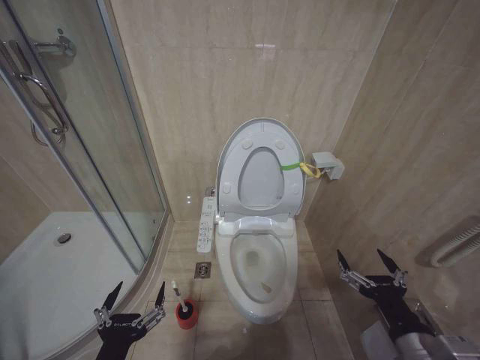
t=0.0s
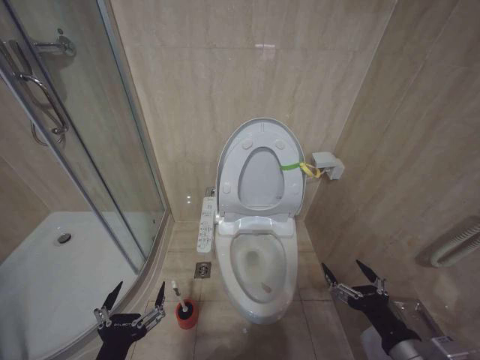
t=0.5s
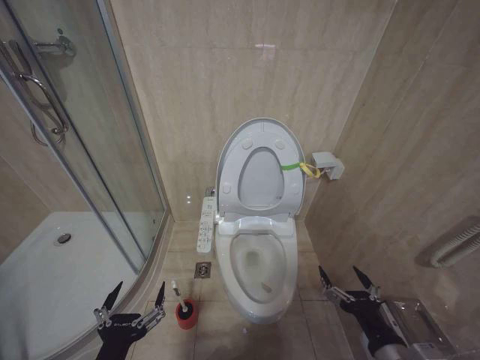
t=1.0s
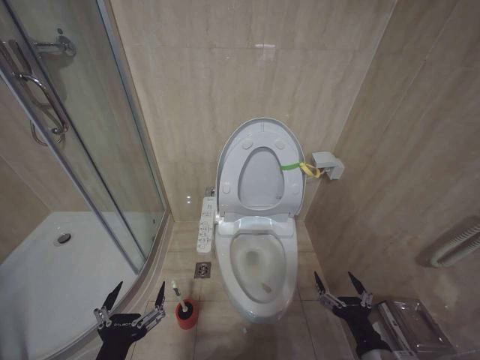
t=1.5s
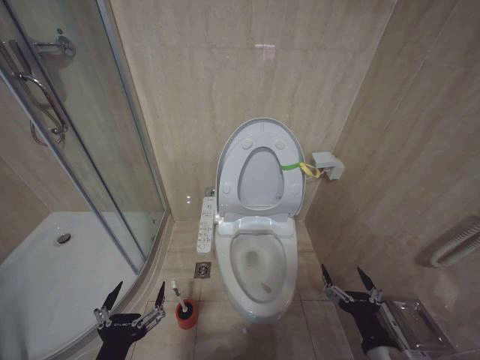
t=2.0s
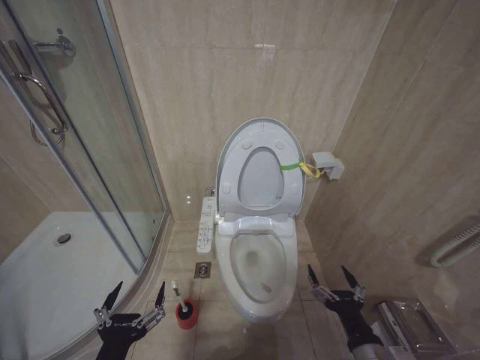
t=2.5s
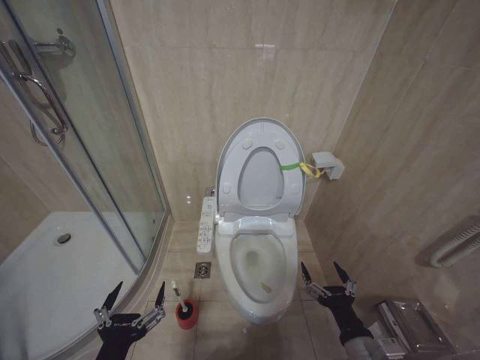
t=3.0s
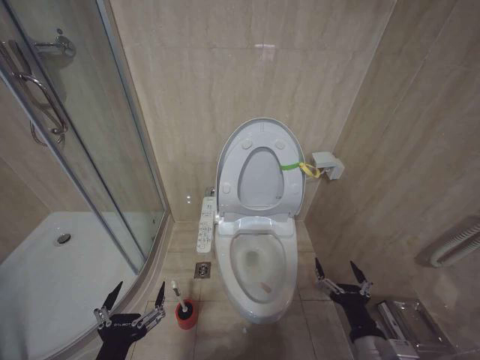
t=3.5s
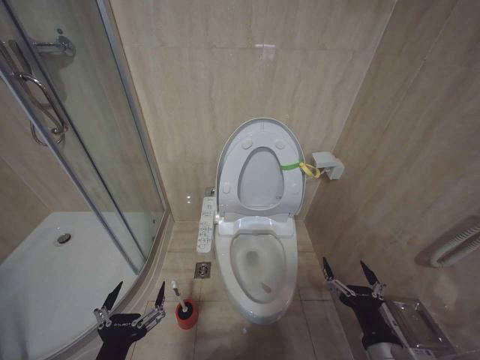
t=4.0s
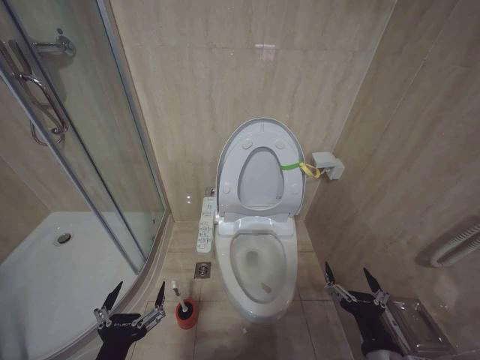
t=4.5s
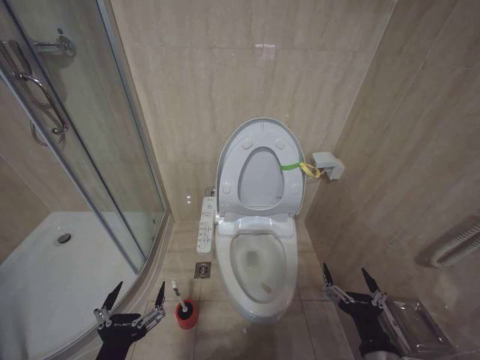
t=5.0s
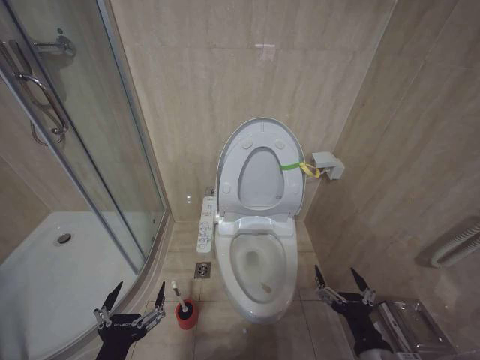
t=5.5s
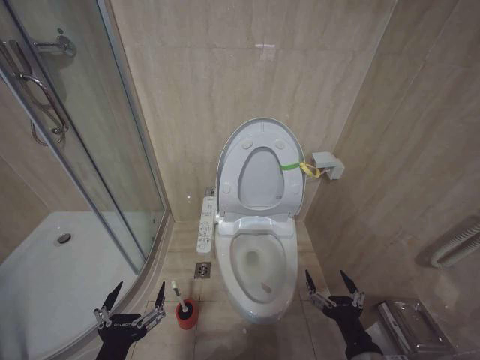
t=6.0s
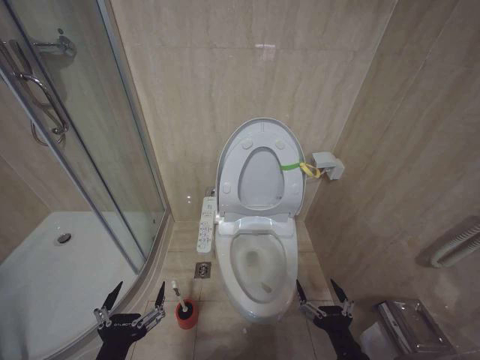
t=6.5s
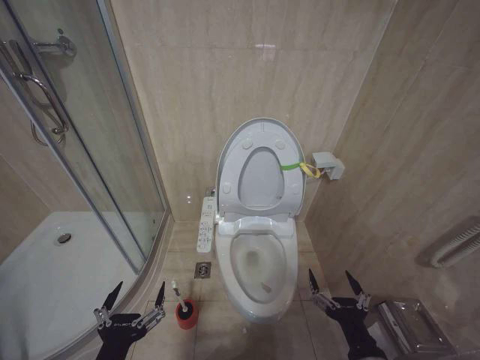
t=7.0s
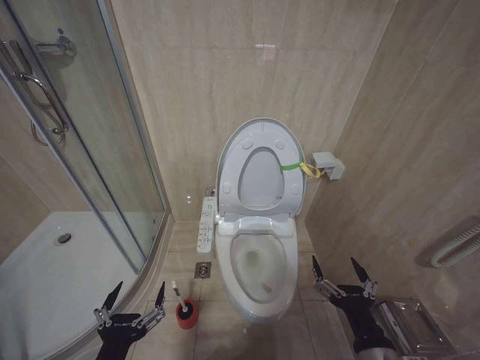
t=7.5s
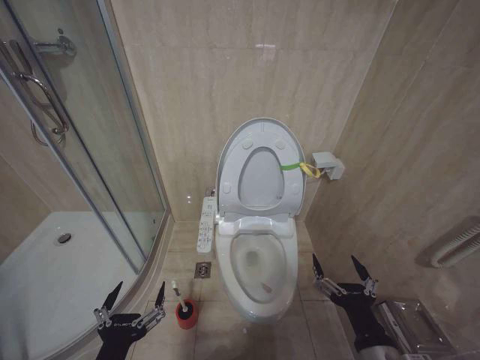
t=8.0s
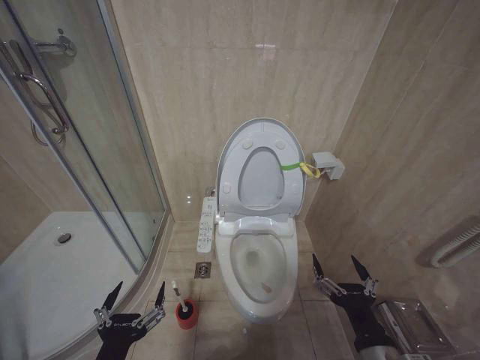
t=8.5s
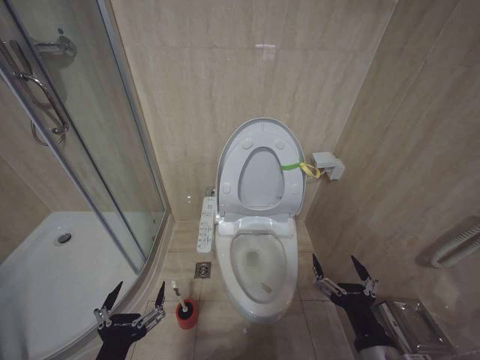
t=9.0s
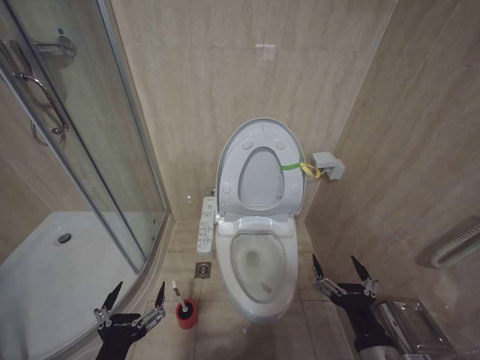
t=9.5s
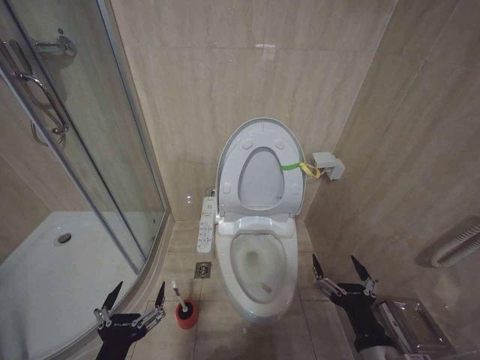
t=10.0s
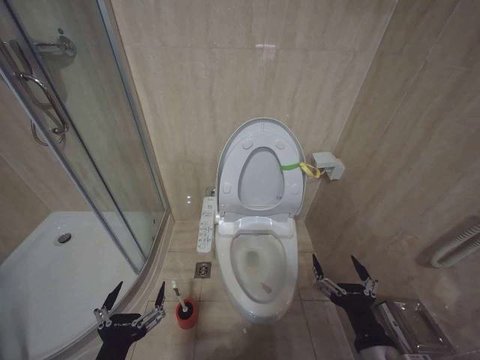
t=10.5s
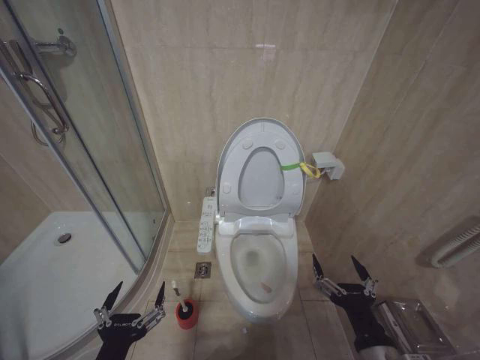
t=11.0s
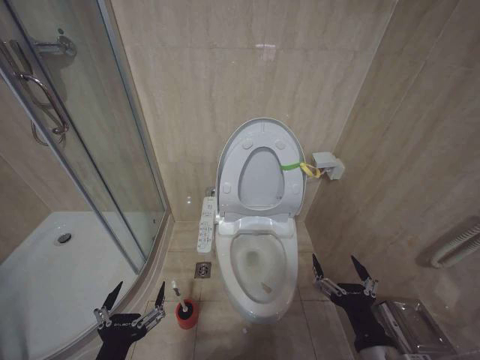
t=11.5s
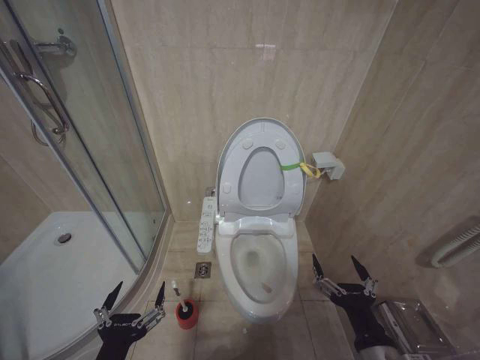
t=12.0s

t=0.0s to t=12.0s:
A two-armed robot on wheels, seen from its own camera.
Task of the whole recording: Open the toilet lid, clean the toilet bowl with a toilet brush, close the toilet lid, and flush.
t=0.0s to t=2.0s: The right gripper goes about 10 cm downward.
t=4.0s to t=6.0s: There are only small adjustments of the grippers.
t=6.0s to t=8.0s: The right gripper moves upward, some 5 cm.
t=8.0s to t=12.0s: The two grippers keep their place.

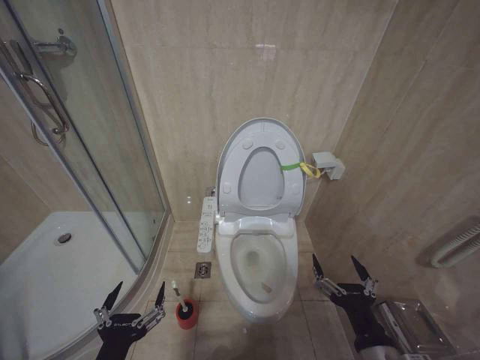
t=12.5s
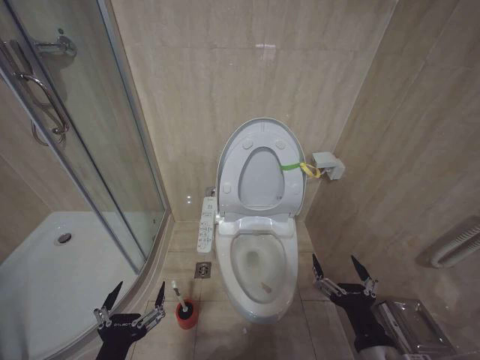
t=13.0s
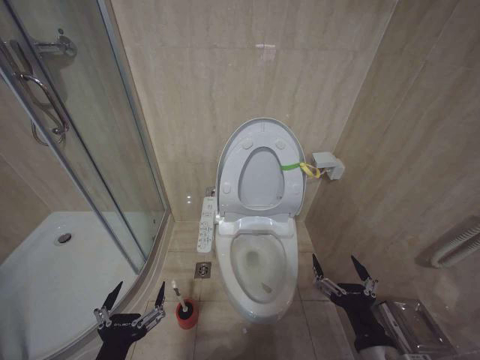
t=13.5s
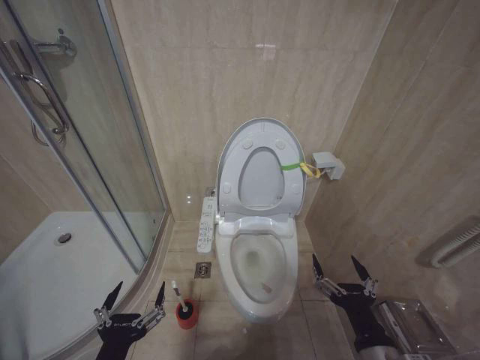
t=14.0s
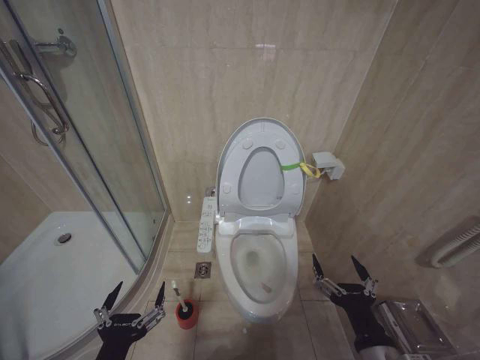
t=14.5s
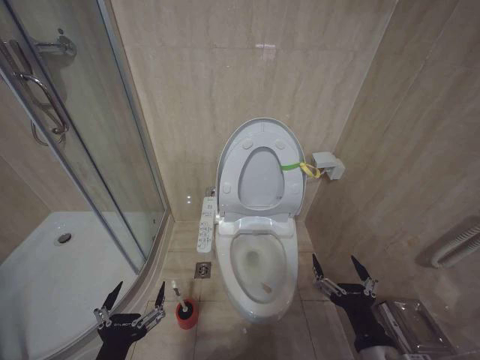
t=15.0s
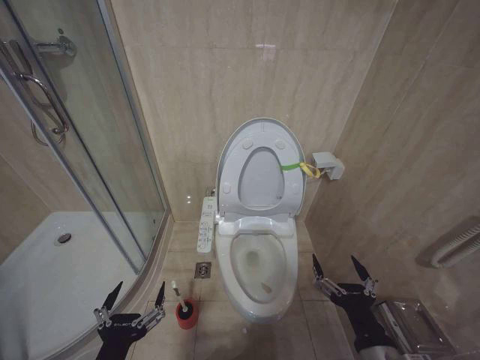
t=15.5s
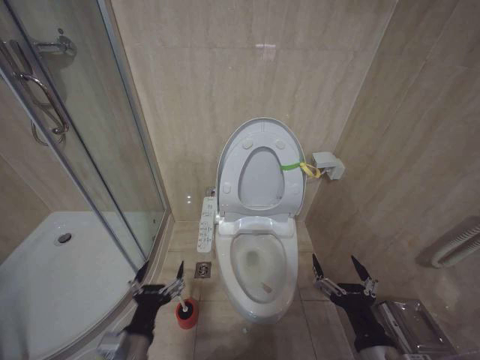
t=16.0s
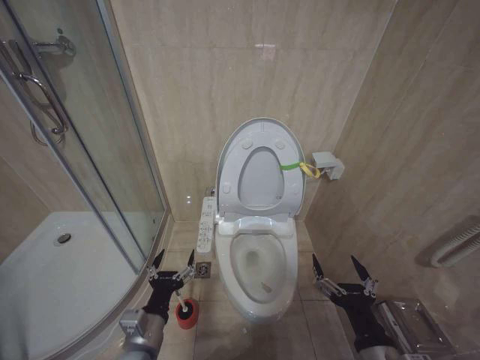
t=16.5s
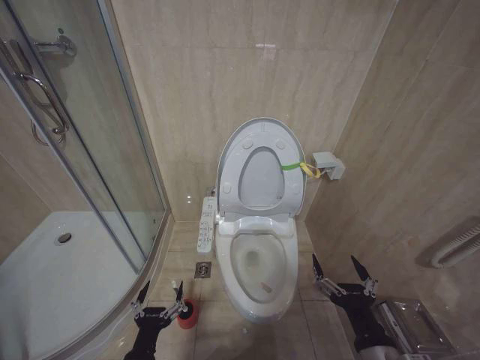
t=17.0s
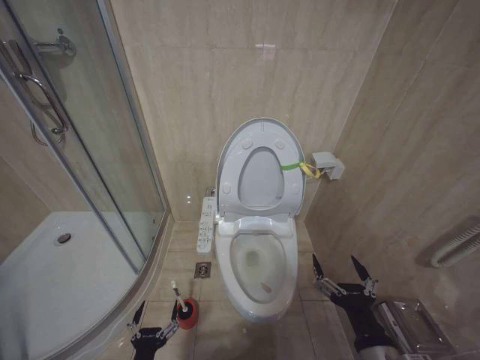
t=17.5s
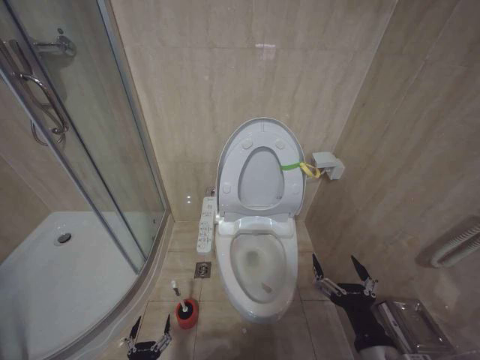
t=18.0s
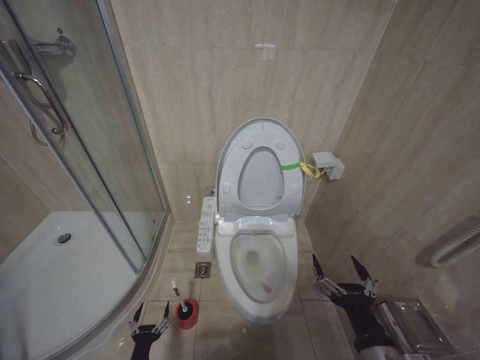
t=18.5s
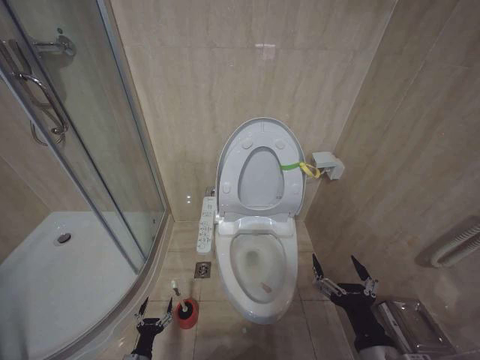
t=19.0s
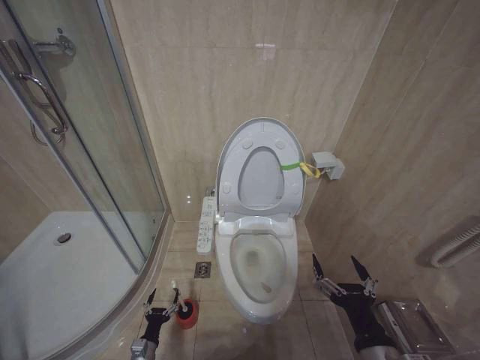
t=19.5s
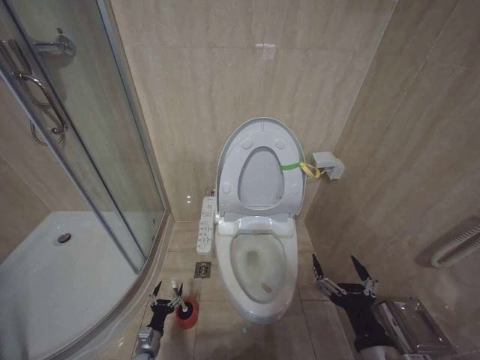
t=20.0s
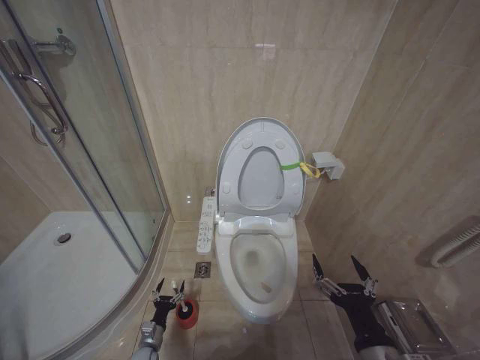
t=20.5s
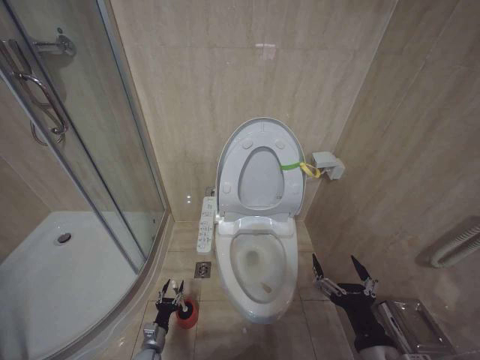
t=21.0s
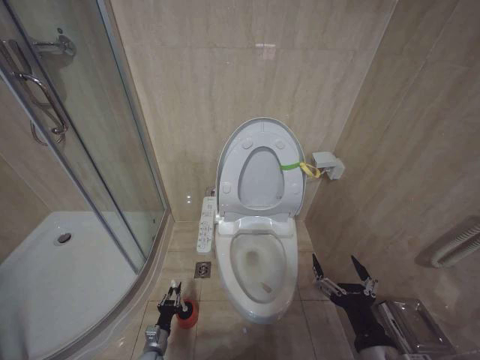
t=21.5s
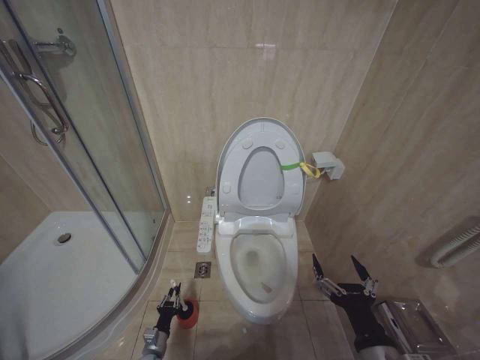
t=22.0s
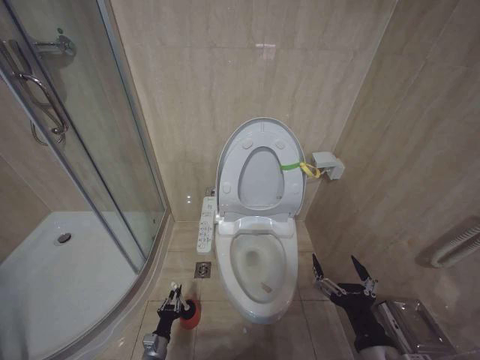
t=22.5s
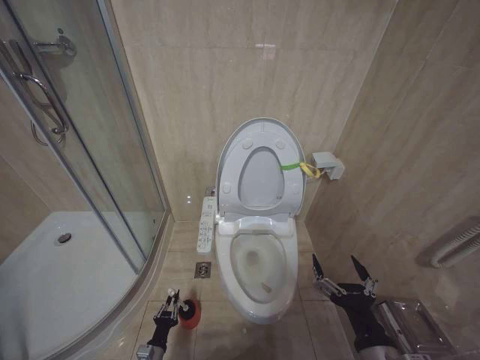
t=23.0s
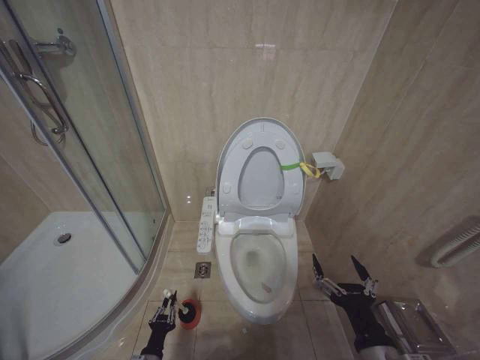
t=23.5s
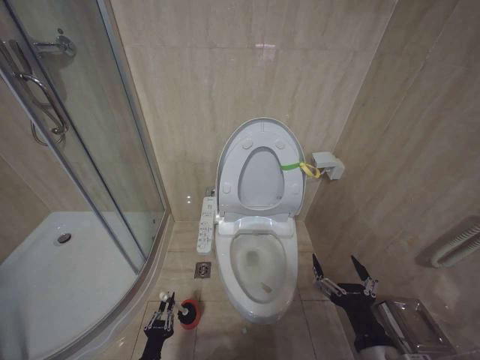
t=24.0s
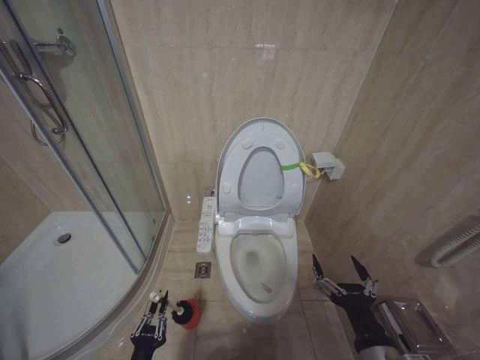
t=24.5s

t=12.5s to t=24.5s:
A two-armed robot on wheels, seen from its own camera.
Task of the whole recording: Open the toilet lid, clean the toilet bowl with a toilet brush, close the toilet lid, and flush.
t=12.5s to t=14.5s: Both grippers stay put.
t=14.5s to t=16.5s: The left gripper travels forward by roughly 10 cm.
t=16.5s to t=18.5s: The left gripper is displaced downward by approximately 30 cm.
t=18.5s to t=20.5s: The left gripper heads forward and downward, covering some 15 cm.
t=20.5s to t=22.5s: The left gripper closes its fingers.
t=22.5s to t=24.5s: The left gripper is displaced upward and backward by approximately 20 cm.

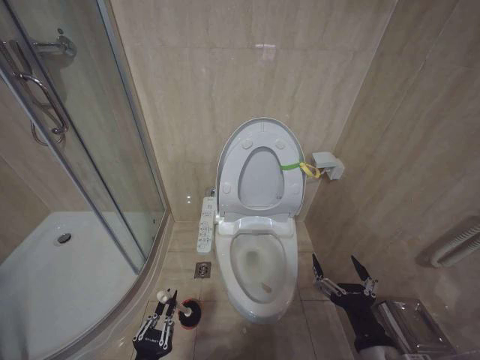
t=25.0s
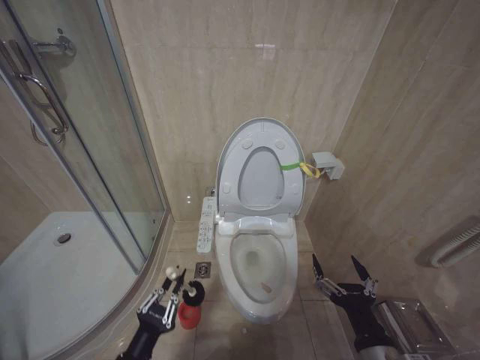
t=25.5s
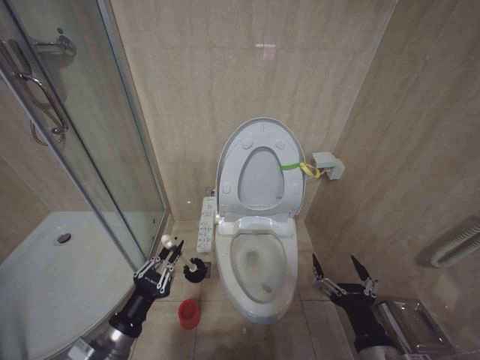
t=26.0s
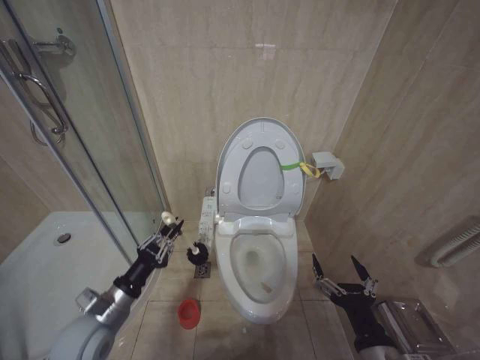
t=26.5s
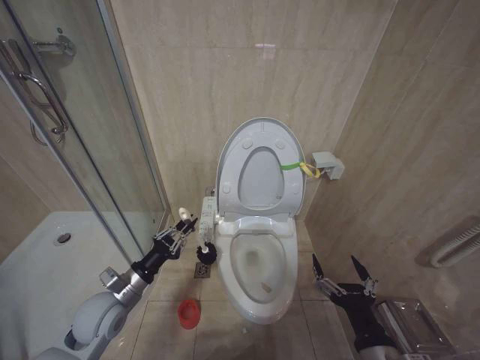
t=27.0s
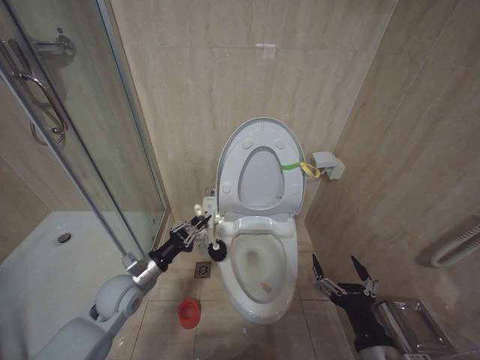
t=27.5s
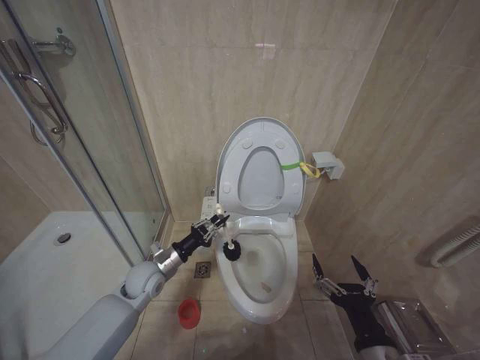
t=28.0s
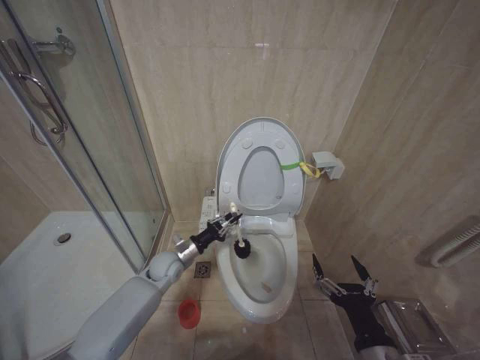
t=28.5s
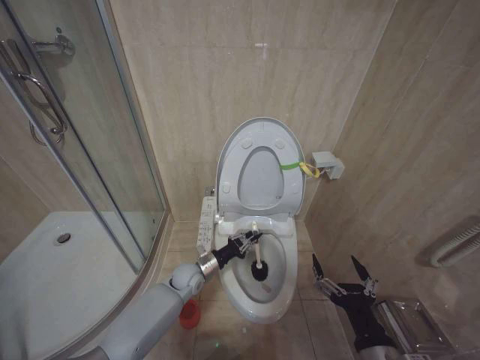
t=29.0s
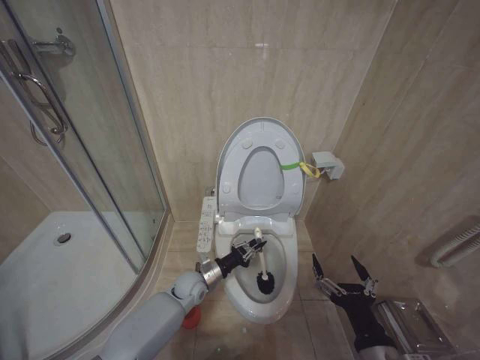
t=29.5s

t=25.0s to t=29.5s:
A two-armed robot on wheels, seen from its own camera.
Task of the whole recording: Open the toilet lid, clean the toilet bowl with a toilet brush, close the toilet lid, and flush.
t=25.0s to t=27.0s: The left gripper heads forward and upward, covering some 25 cm.
t=27.0s to t=29.5s: The left gripper shifts roughly 25 cm to the right, downward and forward.
